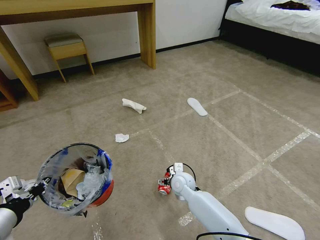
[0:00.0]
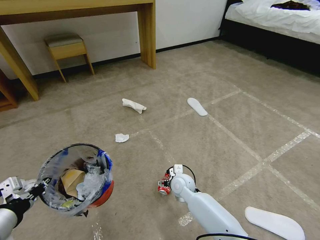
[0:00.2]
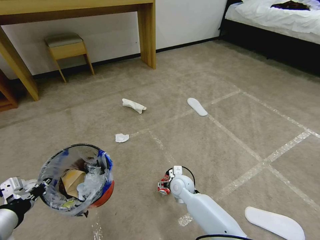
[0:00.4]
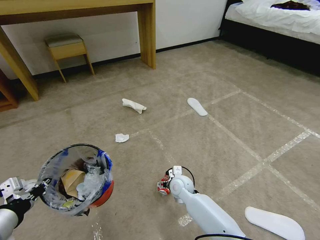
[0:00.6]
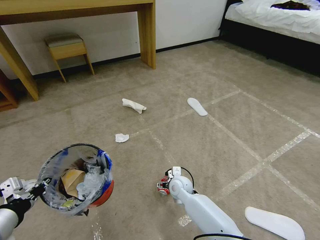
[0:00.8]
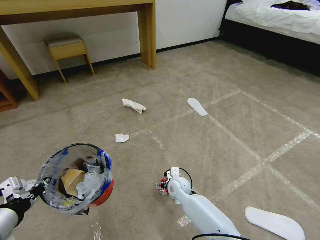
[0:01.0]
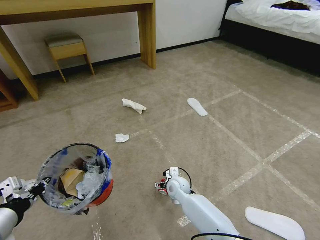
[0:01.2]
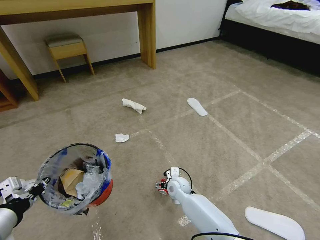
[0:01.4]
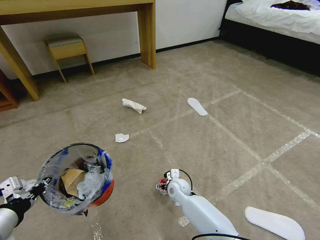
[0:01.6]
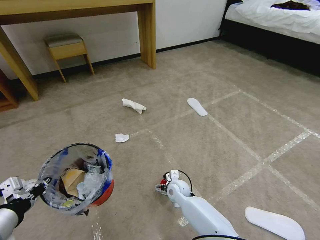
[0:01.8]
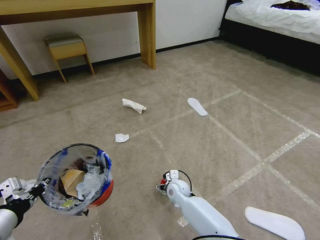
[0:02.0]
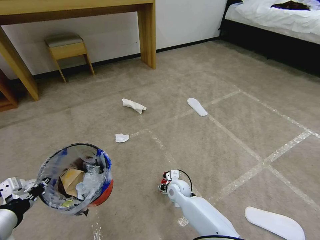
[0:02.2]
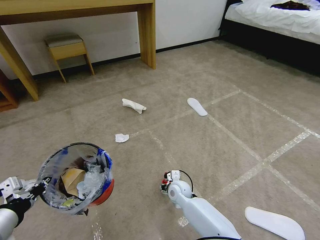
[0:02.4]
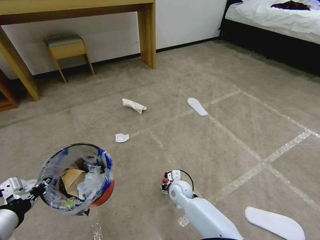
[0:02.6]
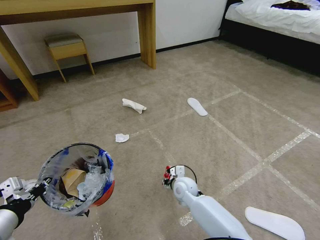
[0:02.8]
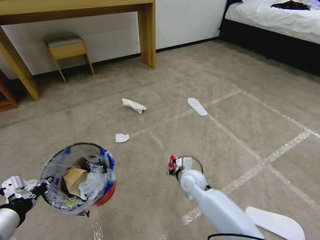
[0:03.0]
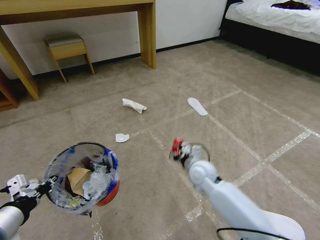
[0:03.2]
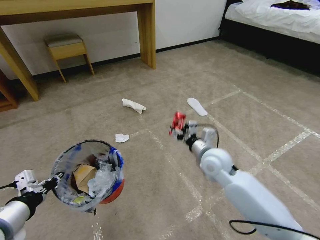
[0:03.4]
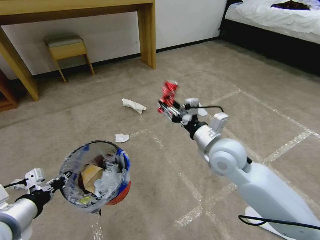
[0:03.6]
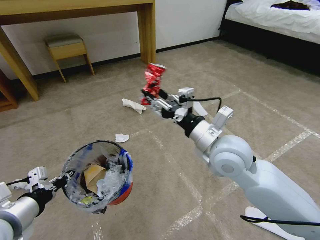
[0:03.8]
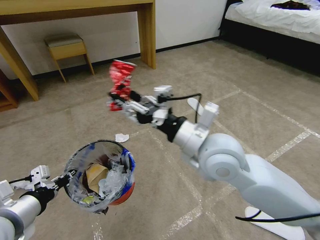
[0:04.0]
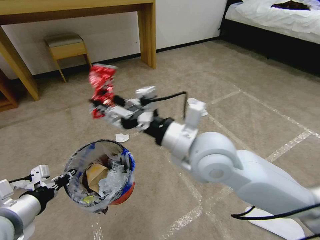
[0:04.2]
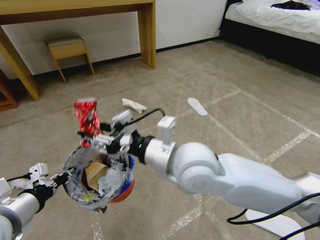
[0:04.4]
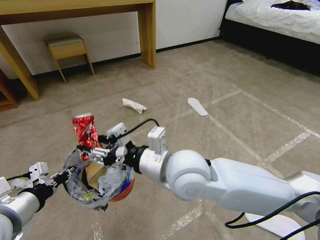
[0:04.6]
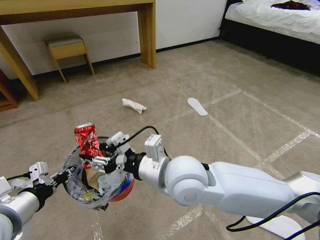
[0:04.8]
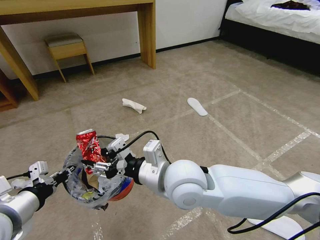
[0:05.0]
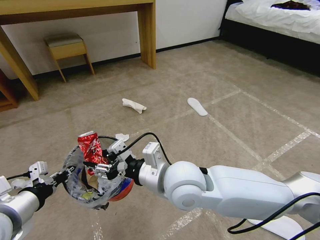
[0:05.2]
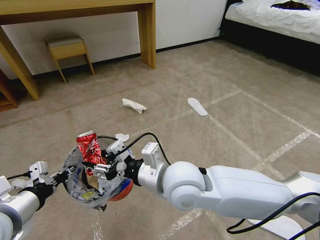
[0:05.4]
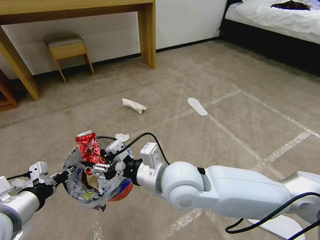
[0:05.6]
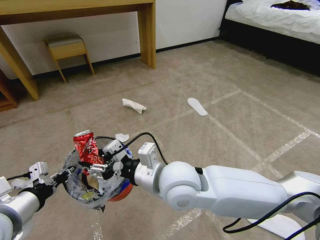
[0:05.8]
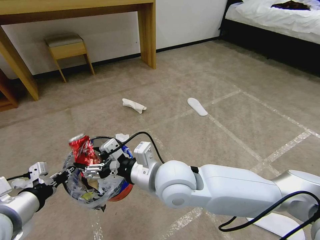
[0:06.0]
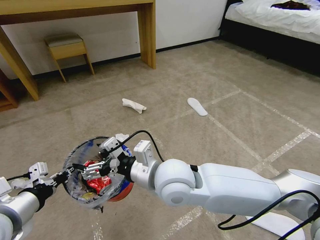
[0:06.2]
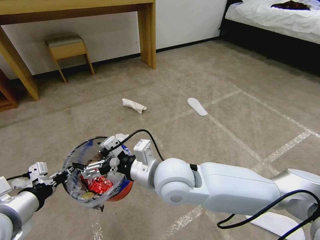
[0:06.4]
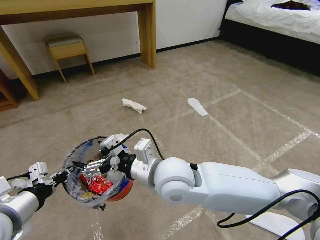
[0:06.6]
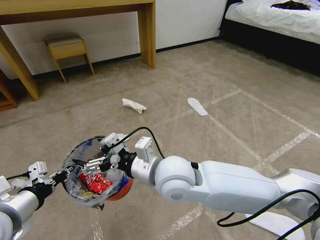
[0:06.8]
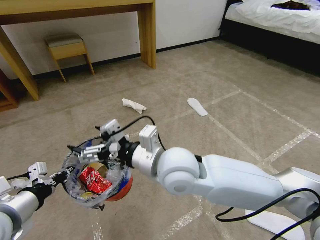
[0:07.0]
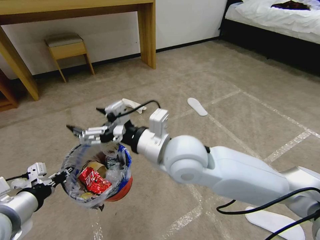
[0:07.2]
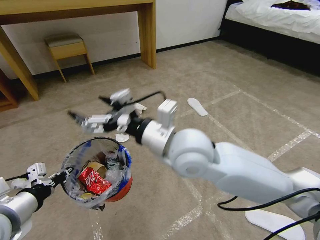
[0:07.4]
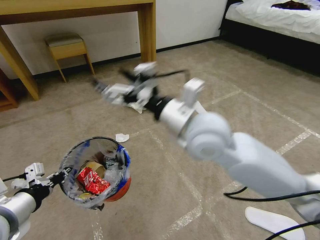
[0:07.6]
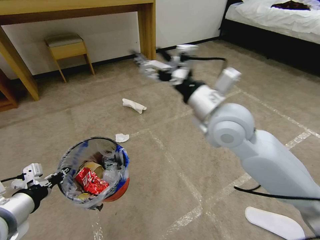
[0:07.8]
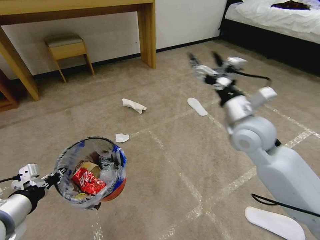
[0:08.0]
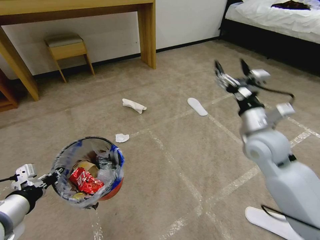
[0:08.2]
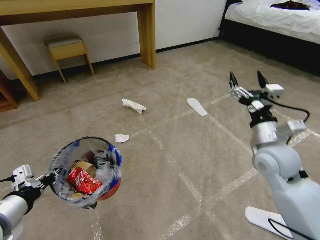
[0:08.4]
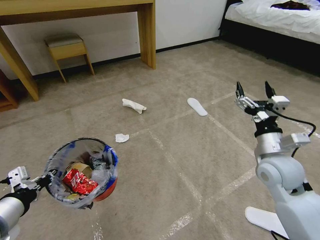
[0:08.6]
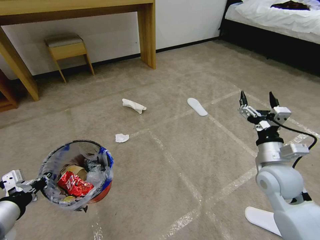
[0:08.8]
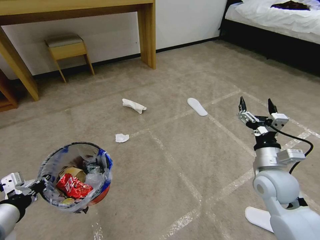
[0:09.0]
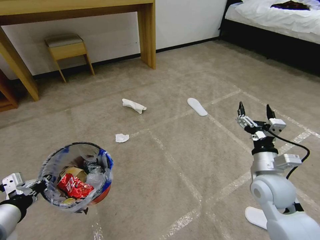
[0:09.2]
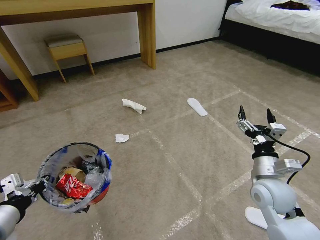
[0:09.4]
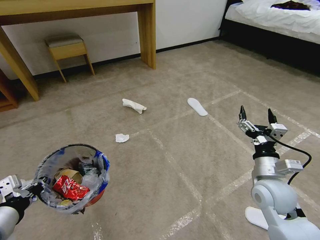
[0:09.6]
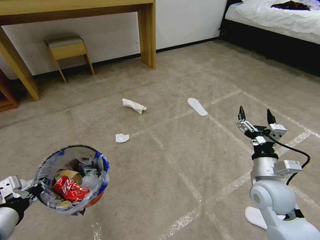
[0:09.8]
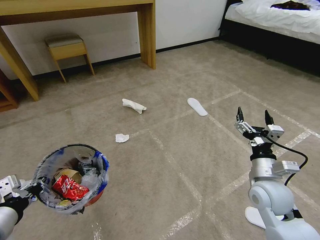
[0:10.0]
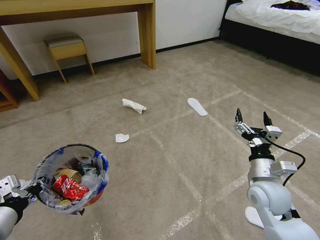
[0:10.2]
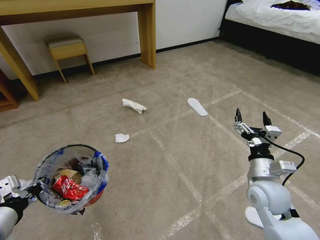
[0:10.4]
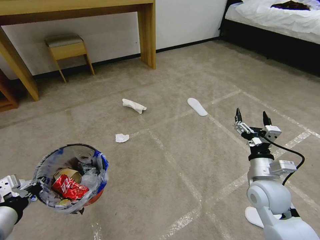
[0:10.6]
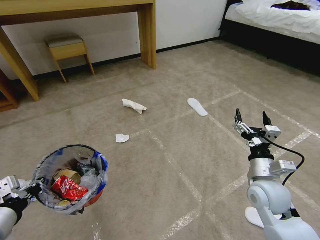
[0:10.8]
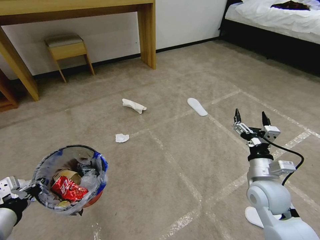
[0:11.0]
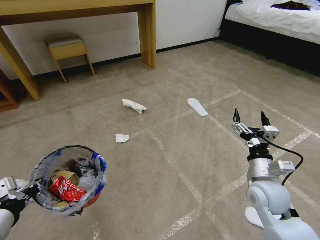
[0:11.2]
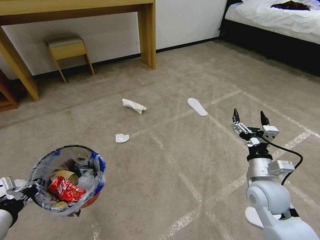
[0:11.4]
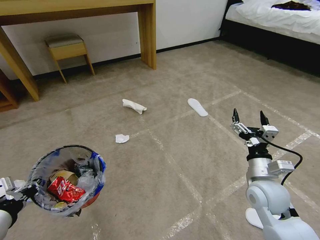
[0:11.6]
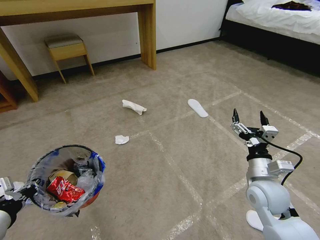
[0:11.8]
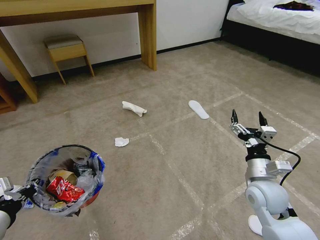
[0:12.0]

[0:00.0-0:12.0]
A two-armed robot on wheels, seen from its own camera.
Task of the whole recording: Pick up the trash bin and place the garbage on the floor into it.
0:00.0 to 0:01.6: The grippers move only a little.
0:01.6 to 0:03.0: The right gripper is displaced upward by approximately 5 cm, and closes up.
0:03.0 to 0:04.4: The right gripper shifts approximately 30 cm upward.
0:04.4 to 0:06.0: The right gripper is displaced downward by some 5 cm.
0:06.0 to 0:07.6: The right gripper travels upward, to the right and forward by roughly 15 cm.
0:07.6 to 0:09.0: The right gripper heads to the right and downward, covering approximately 30 cm.
0:09.0 to 0:10.4: The grippers move only a little.
0:10.4 to 0:12.0: Neither gripper changes place.

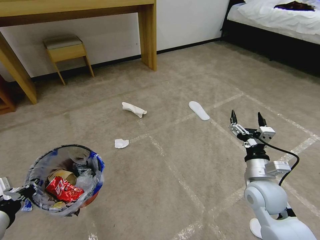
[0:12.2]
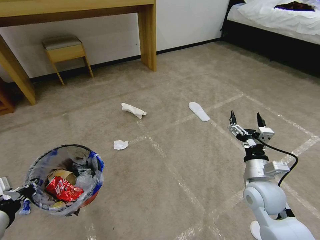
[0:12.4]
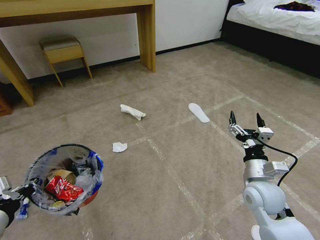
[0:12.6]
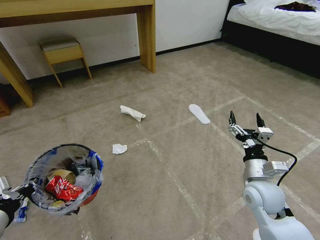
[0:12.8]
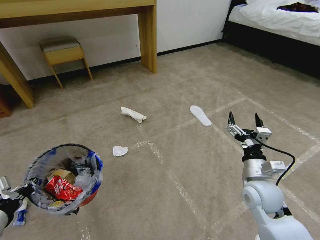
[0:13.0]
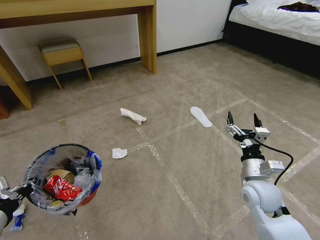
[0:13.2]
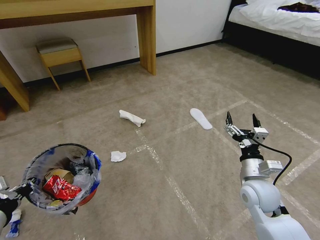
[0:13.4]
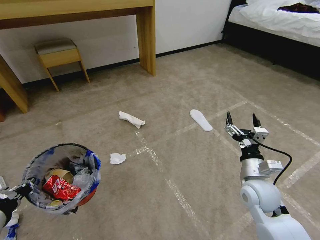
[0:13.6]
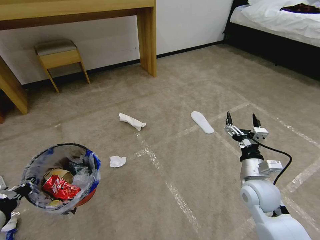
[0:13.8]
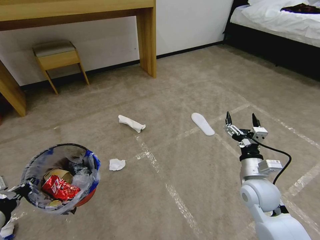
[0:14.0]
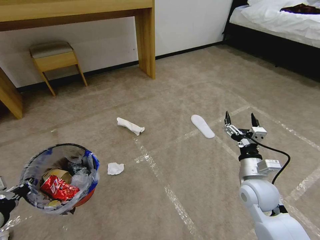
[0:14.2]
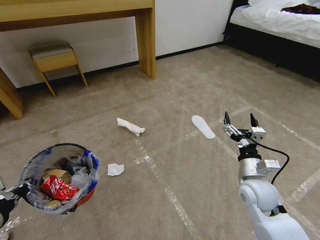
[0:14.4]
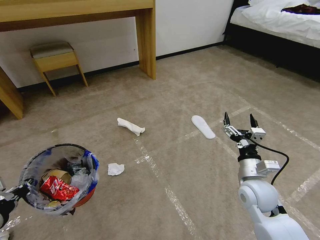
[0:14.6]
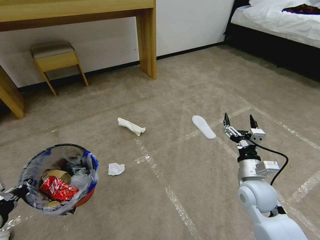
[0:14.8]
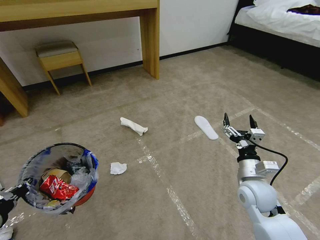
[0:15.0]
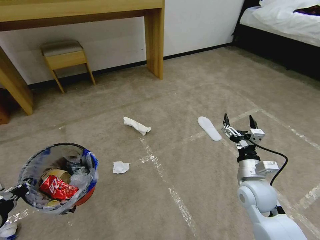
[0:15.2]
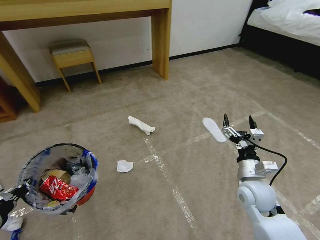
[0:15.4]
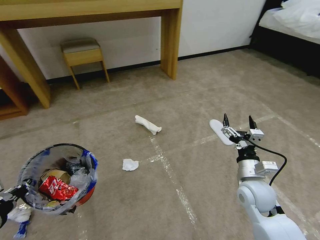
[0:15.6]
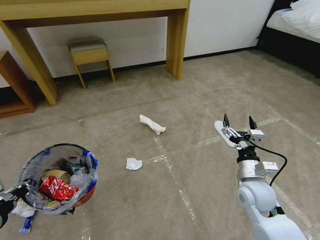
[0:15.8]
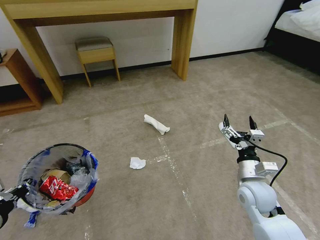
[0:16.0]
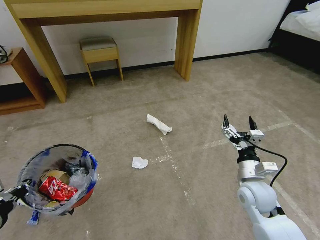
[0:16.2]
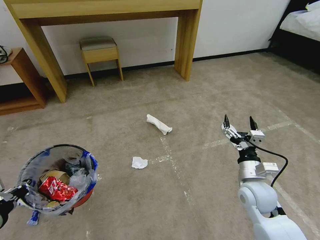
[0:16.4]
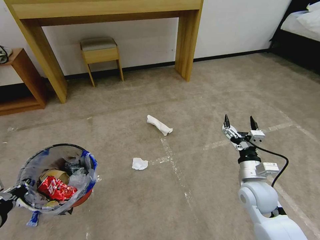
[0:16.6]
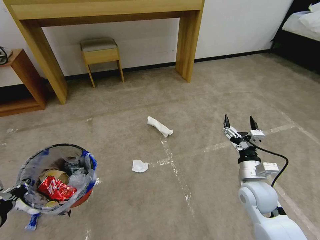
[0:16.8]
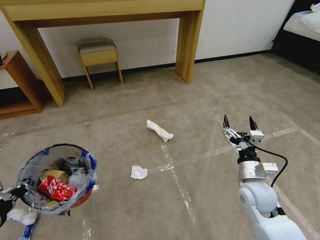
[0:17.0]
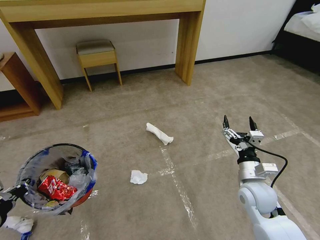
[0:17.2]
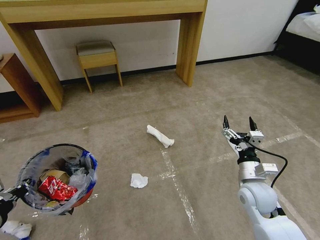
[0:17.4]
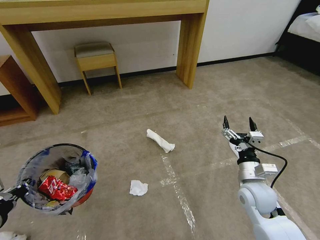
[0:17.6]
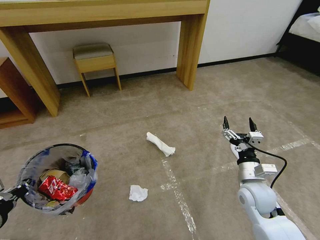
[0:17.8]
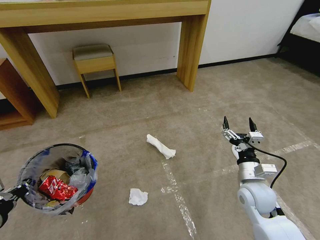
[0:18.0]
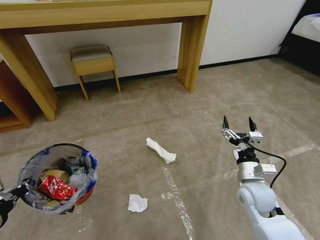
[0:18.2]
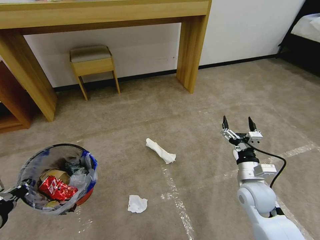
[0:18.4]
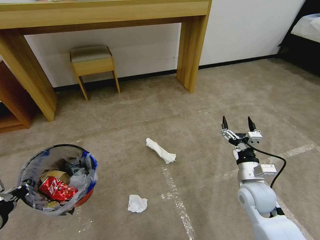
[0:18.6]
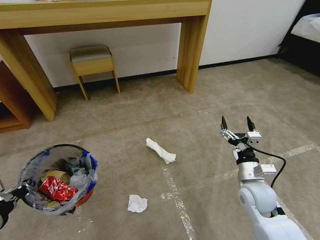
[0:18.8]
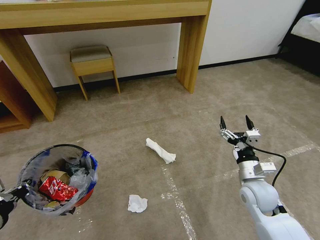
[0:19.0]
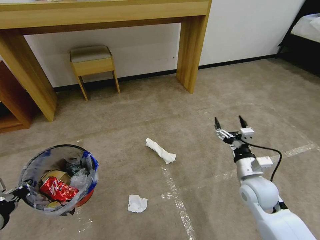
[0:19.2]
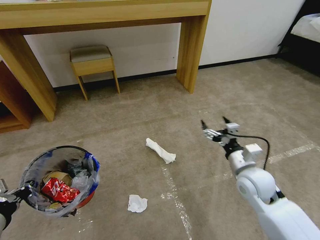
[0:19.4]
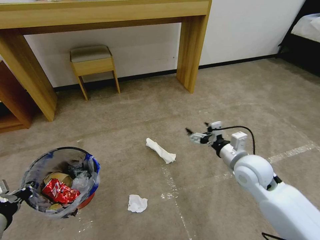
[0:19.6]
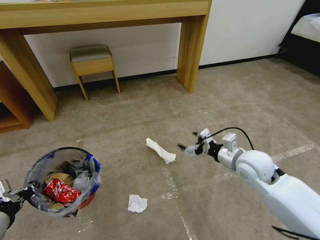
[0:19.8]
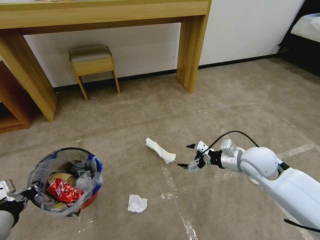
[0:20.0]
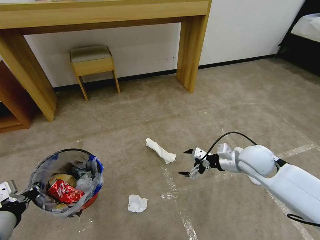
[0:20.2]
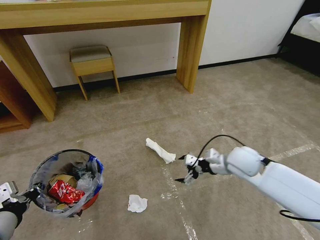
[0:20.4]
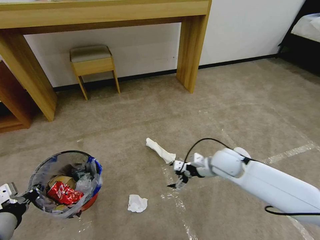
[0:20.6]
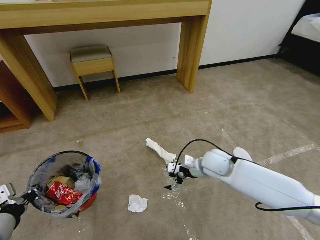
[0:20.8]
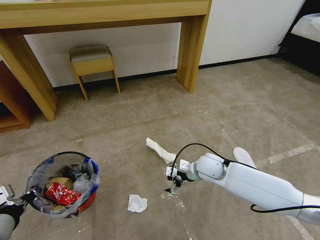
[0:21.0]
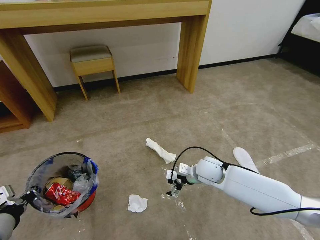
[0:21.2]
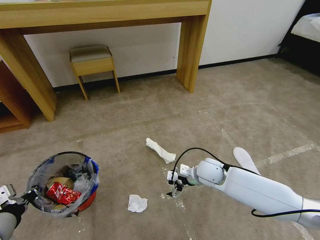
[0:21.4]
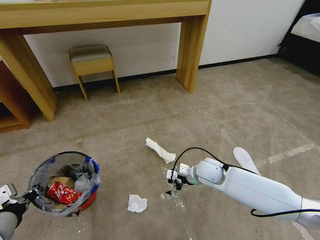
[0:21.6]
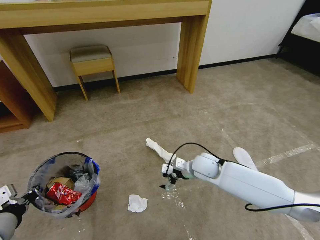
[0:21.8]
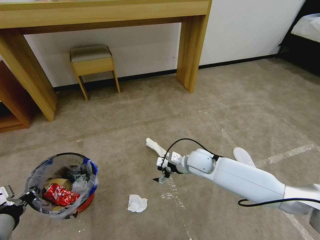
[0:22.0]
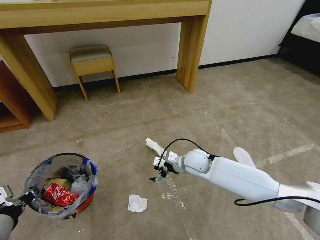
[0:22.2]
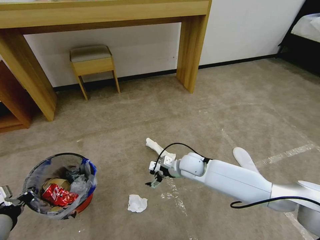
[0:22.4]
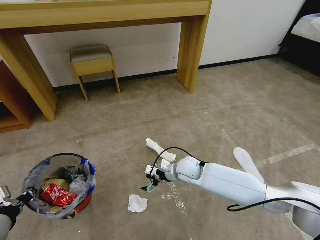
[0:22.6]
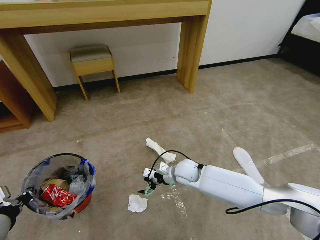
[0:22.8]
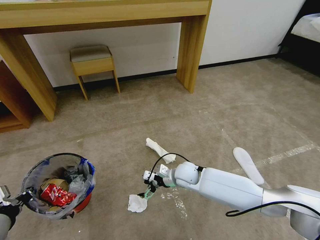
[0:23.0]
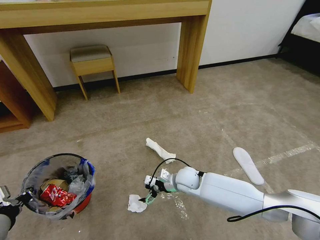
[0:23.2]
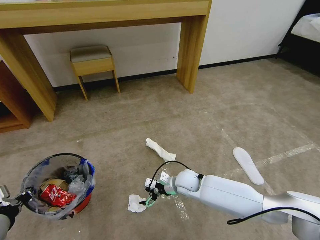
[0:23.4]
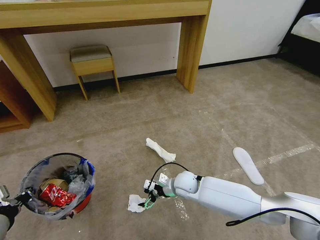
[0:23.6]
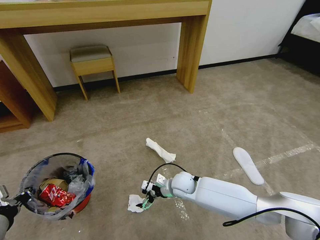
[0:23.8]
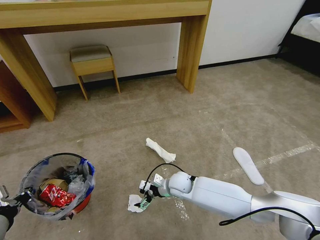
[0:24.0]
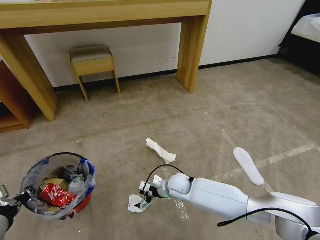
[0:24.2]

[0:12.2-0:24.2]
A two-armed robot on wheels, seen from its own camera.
Task of the whole recording: Pick up the trash bin and place the garbage on the floor into it.
0:13.8 to 0:15.2: The two grippers keep their place.
0:18.2 to 0:19.8: The right gripper travels upward and forward by some 10 cm.
0:19.8 to 0:21.2: The right gripper is displaced downward and to the left by some 15 cm.
0:21.2 to 0:22.6: The right gripper is displaced to the left by roughly 5 cm.
0:22.6 to 0:24.2: The right gripper goes approximately 10 cm downward.
